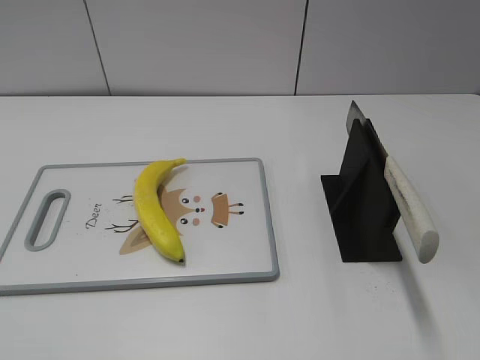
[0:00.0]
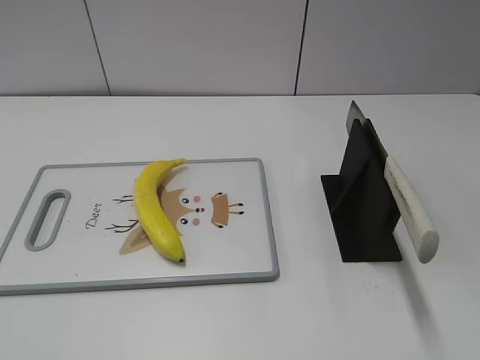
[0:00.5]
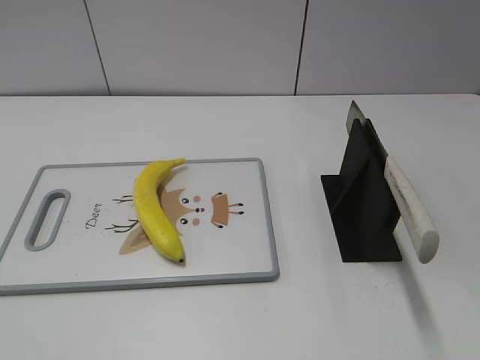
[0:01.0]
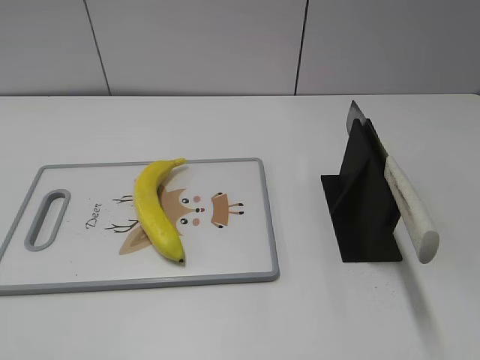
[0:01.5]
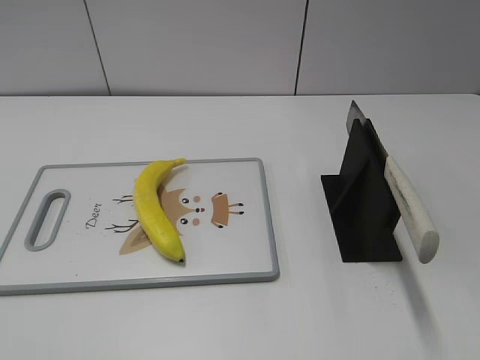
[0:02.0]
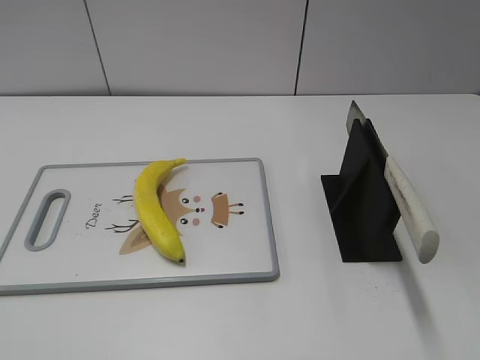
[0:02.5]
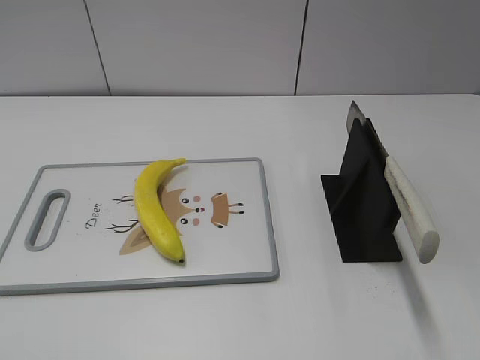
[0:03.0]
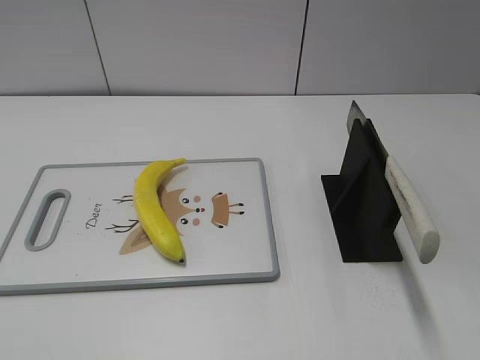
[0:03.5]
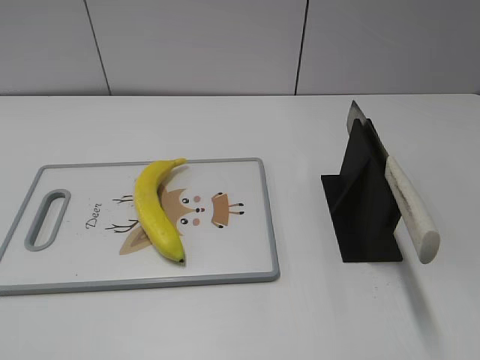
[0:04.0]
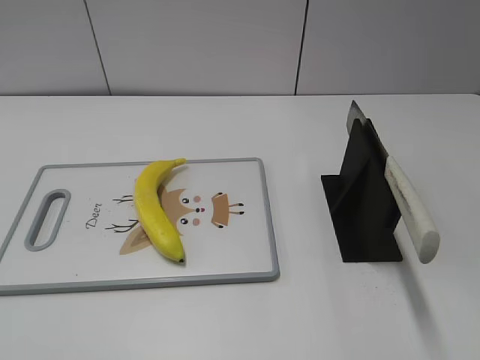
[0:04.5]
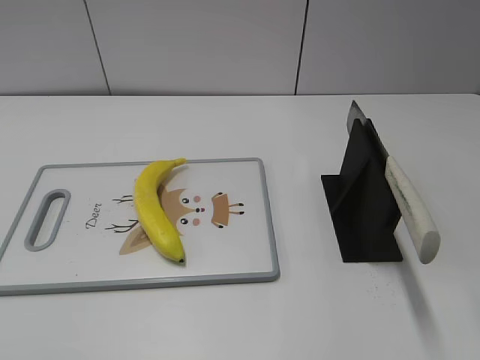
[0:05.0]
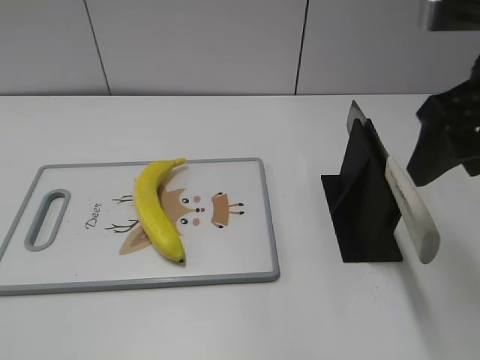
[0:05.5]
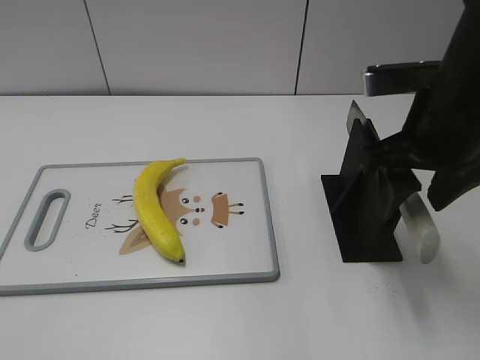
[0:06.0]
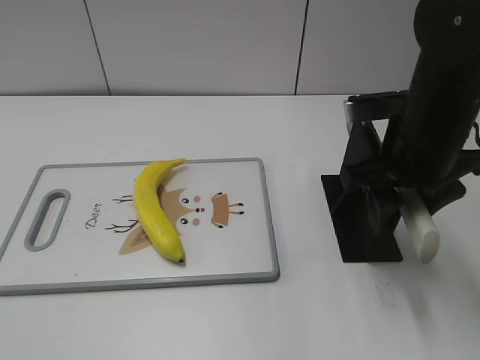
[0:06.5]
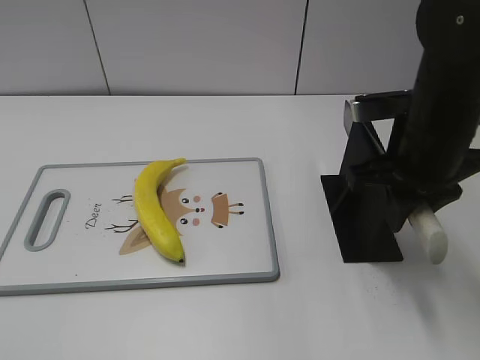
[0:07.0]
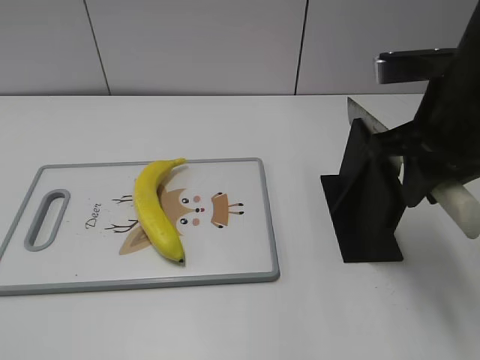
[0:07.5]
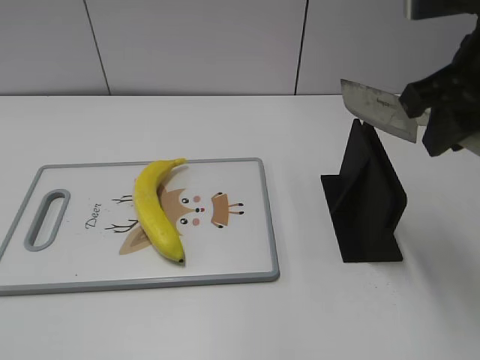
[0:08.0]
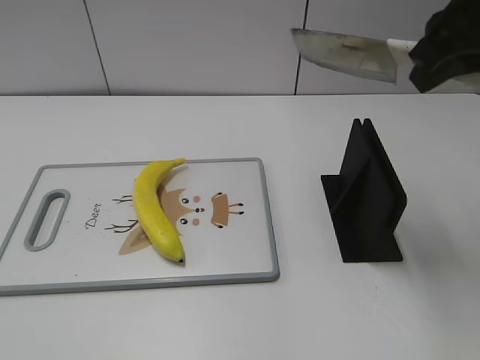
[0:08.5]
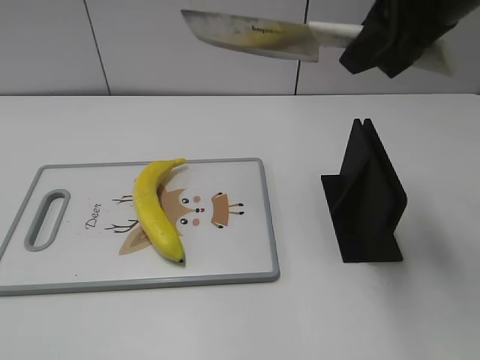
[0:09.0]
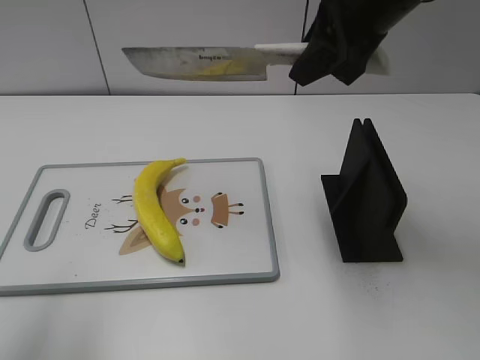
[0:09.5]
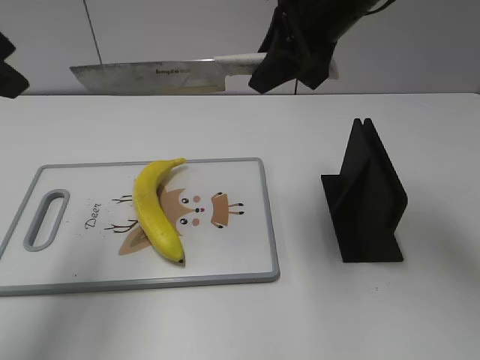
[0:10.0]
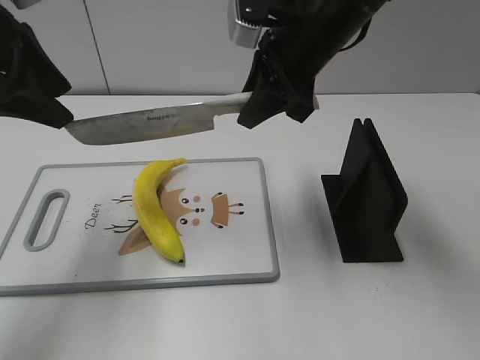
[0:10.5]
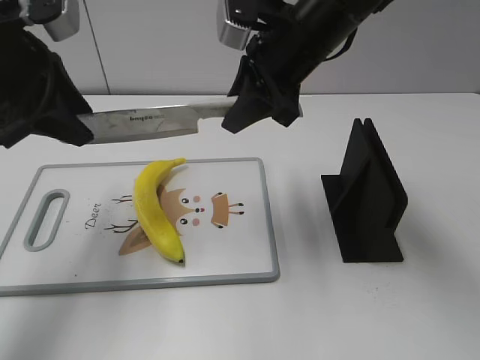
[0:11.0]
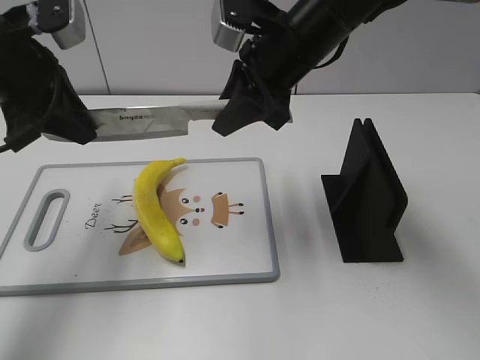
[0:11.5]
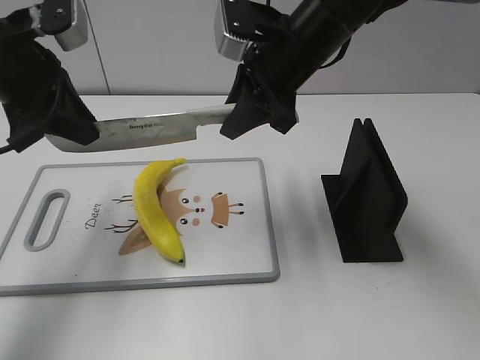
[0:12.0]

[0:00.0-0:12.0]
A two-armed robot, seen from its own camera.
Task of the whole recording: cut plastic banana.
Step, 0:00.0 to 0:08.5: Grab the knife handle with your right hand.
0:04.0 to 0:06.0: The right gripper goes some 25 cm forward and to the left.
0:06.0 to 0:08.0: The right gripper goes roughly 5 cm upward, and closes up.
0:08.0 to 0:10.0: The left gripper heads forward, covering about 25 cm. Meanwhile the right gripper shifts approximately 15 cm forward and to the left.
0:10.0 to 0:12.0: The right gripper travels downward by about 5 cm. The left gripper travels downward and forward by about 10 cm, and closes its fingers.

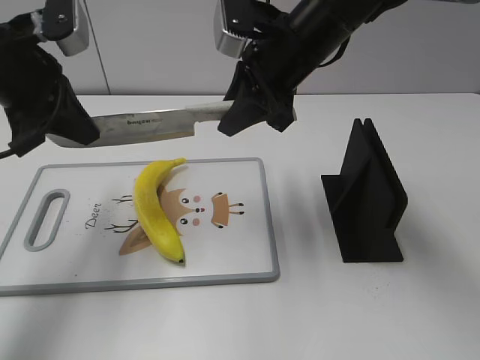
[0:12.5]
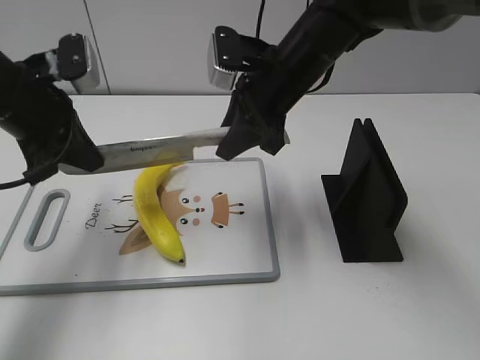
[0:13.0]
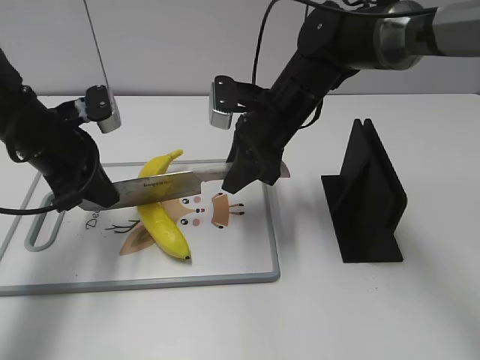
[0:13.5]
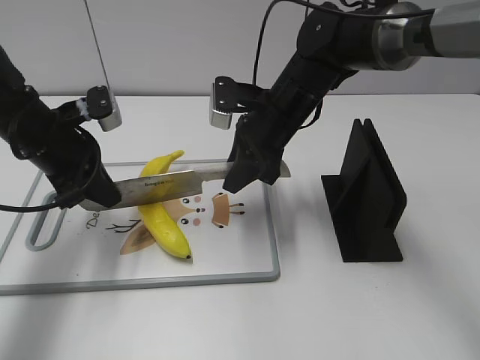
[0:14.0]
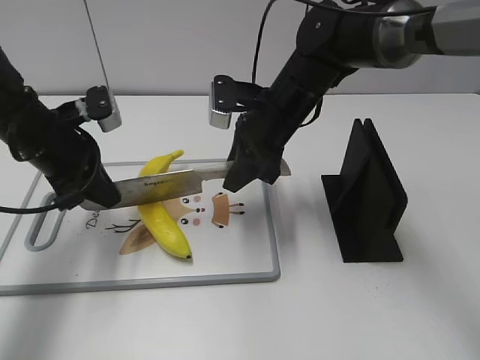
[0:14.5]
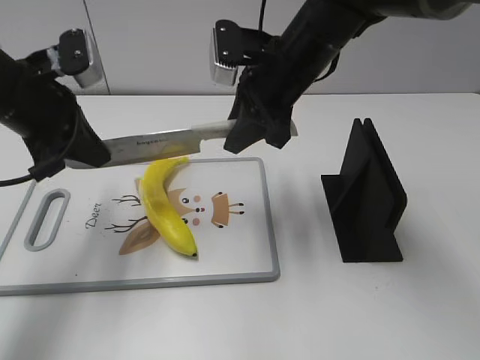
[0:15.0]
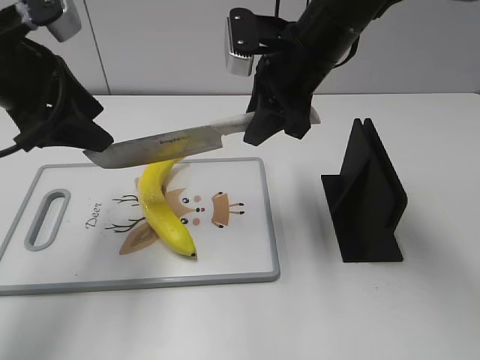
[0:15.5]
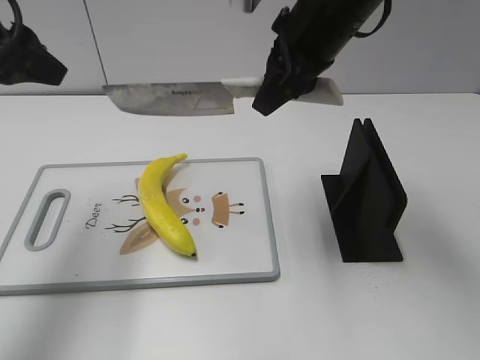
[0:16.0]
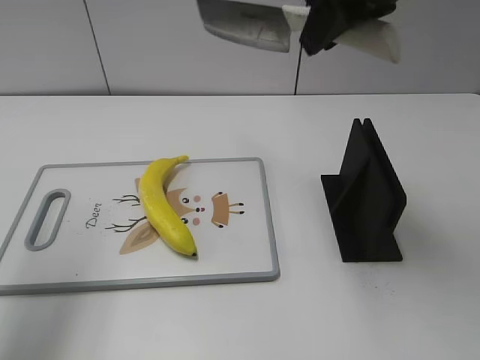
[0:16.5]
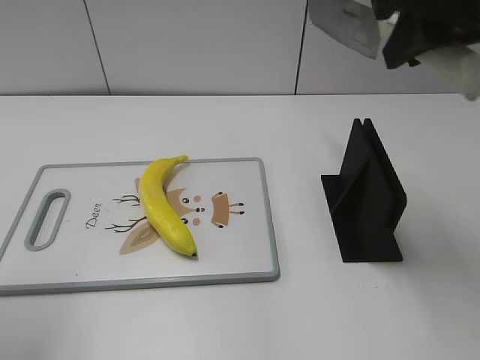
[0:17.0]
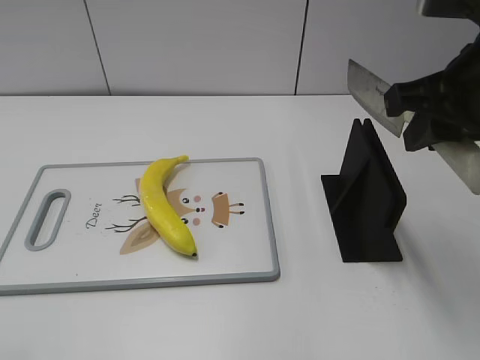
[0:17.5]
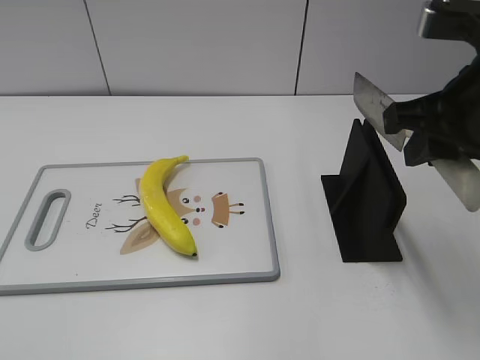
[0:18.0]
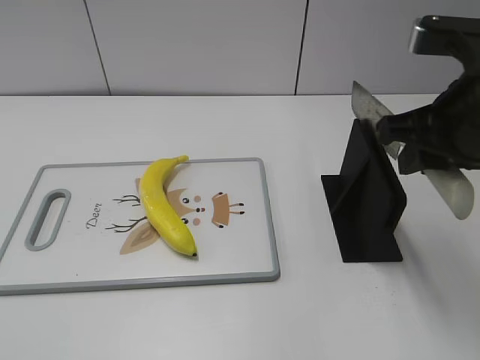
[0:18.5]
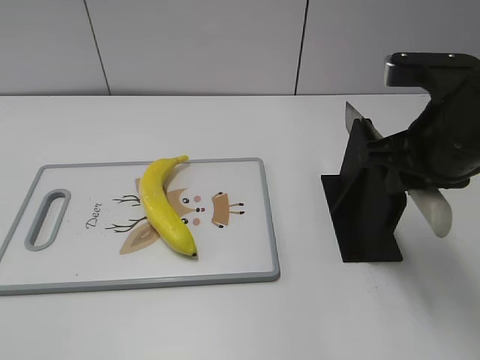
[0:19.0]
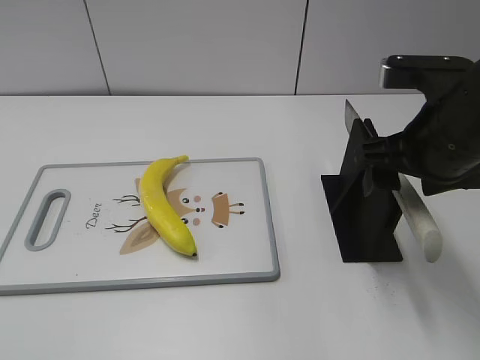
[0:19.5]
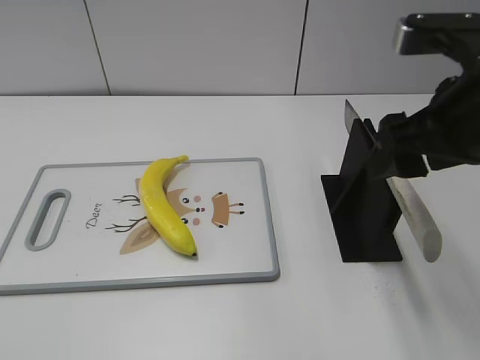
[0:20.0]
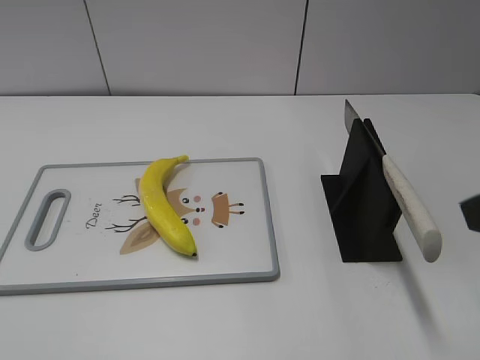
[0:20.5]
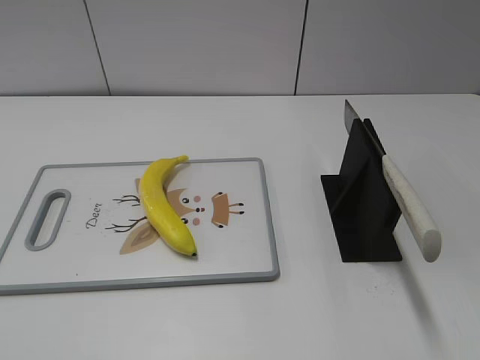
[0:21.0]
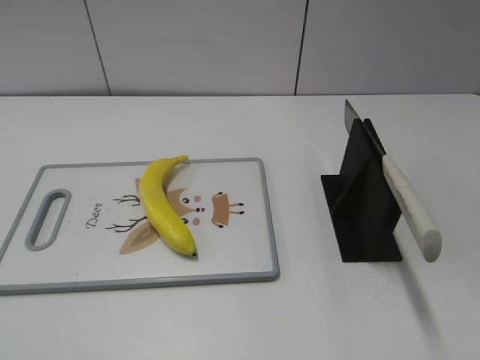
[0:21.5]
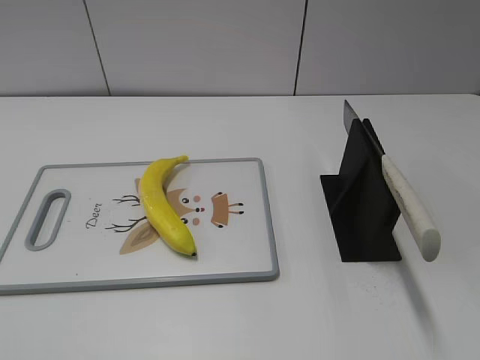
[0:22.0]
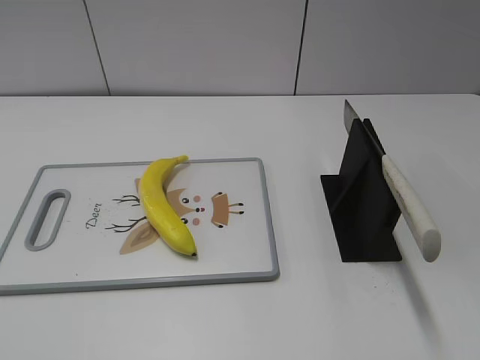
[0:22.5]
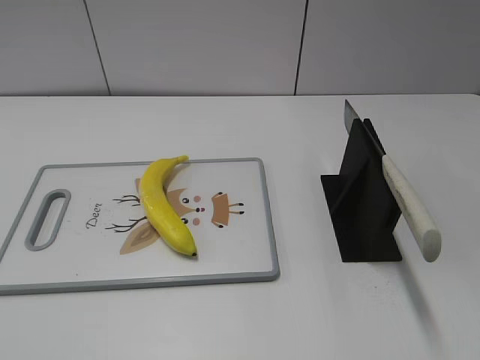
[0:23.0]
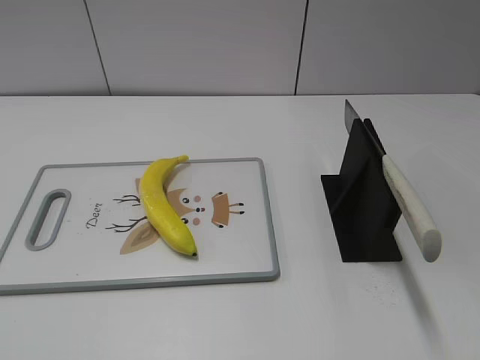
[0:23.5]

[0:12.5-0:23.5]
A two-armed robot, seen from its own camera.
Task of the whole recording: cut plastic banana.
Step, 0:14.5 to 0:16.5: Cut the banana with your right hand.
Step, 0:17.0 to 0:18.5: Lift the knife with your right hand.
Step, 0:19.0 to 0:23.5: Place the knife on the storage rack with your right hand.
0:12.5 to 0:14.5: The two grippers go about 10 cm downward.
0:14.5 to 0:16.0: The grippers both shift upward by some 15 cm. The left gripper opens up.
0:16.0 to 0:18.0: The right gripper goes approximately 15 cm backward and to the right, while the left gripper goes some 30 cm backward.
0:18.0 to 0:20.0: The right gripper opens up.
0:20.0 to 0:21.5: The right gripper is displaced backward and to the right by roughly 25 cm.

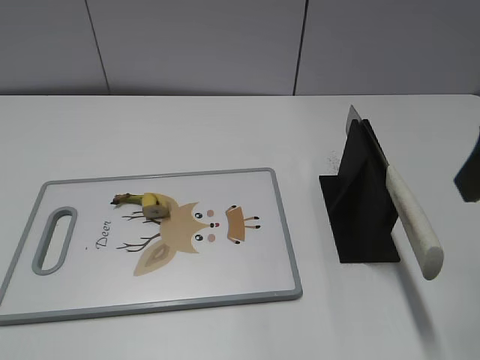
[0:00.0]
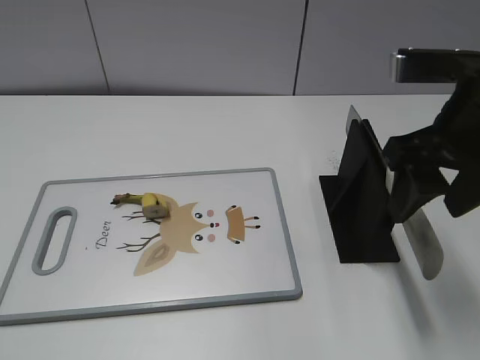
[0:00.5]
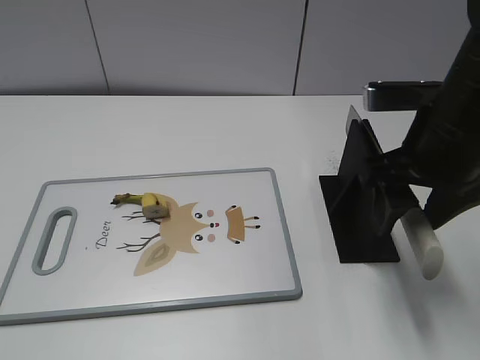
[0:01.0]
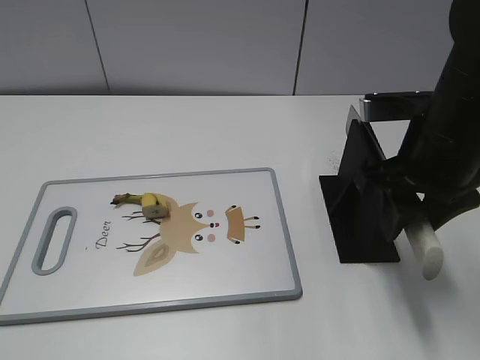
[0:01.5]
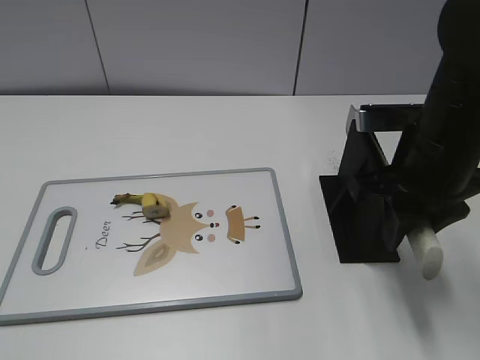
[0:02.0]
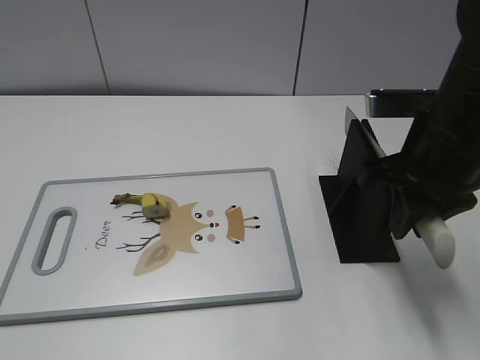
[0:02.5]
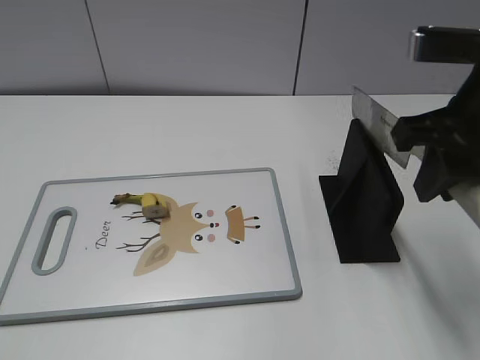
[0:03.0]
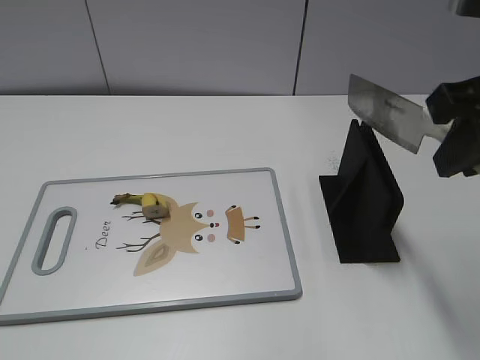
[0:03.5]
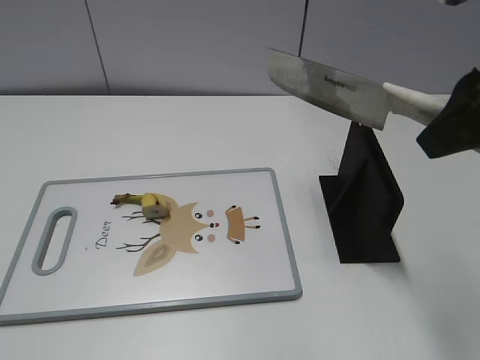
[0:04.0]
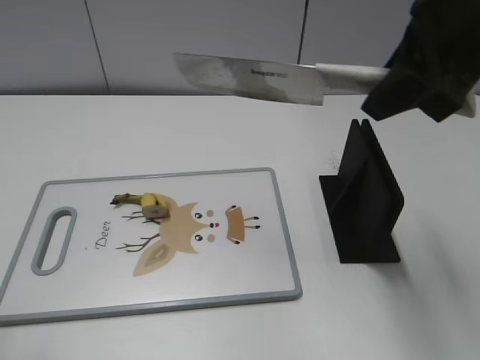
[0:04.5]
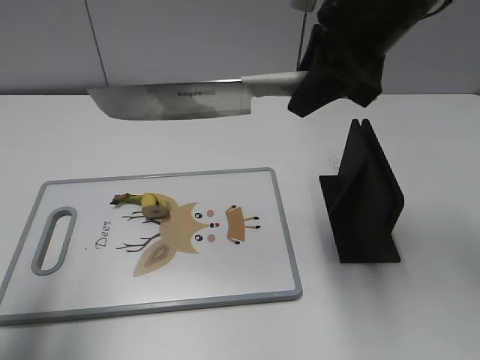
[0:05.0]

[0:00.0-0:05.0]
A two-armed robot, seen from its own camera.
Task of the whole recording: cut banana.
Step, 0:00.0 to 0:04.0: Grab the knife handle with your right hand.
0:00.0 to 0:02.5: The right gripper shifts roughly 10 cm downward and forward, and closes.
0:02.5 to 0:05.0: The left gripper moves forward, approximately 20 cm. Meanwhile the right gripper goes some 10 cm upward, forward and to the left.
